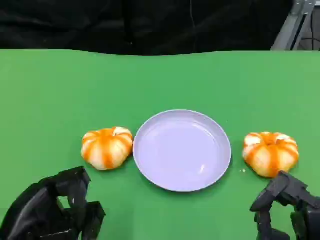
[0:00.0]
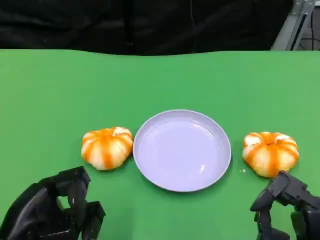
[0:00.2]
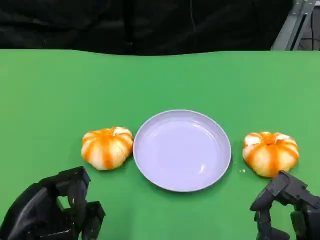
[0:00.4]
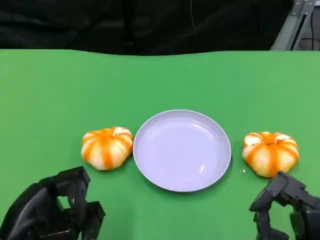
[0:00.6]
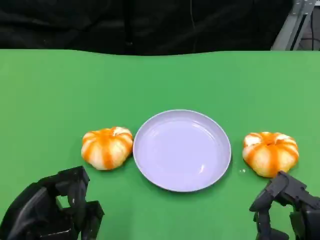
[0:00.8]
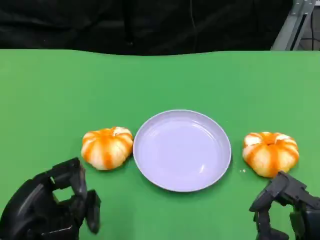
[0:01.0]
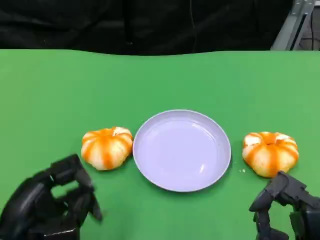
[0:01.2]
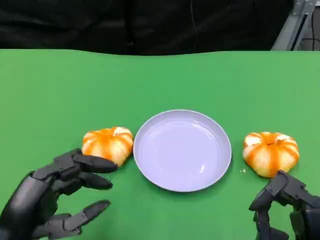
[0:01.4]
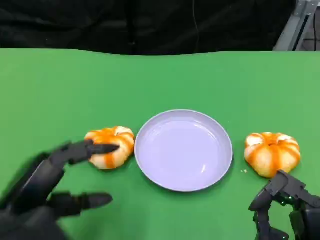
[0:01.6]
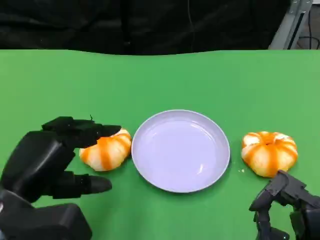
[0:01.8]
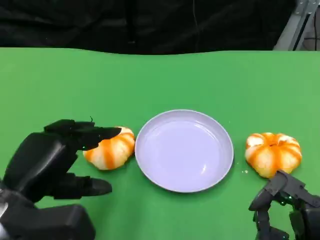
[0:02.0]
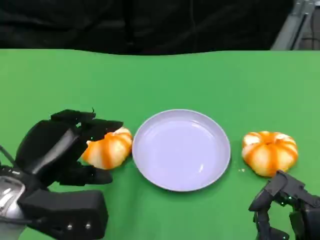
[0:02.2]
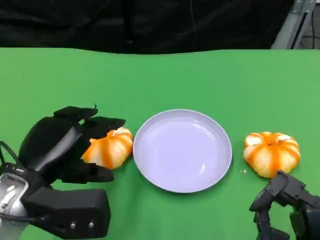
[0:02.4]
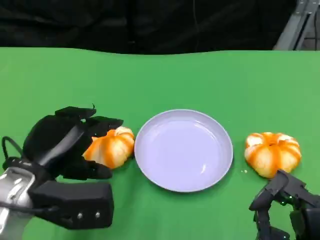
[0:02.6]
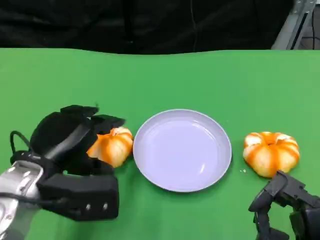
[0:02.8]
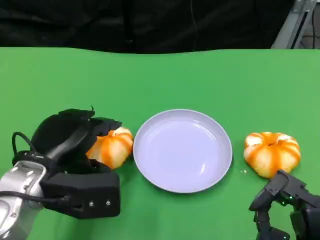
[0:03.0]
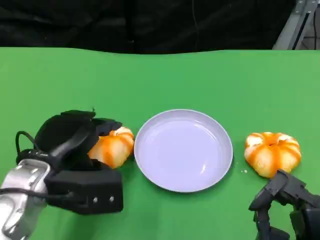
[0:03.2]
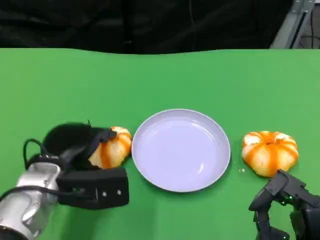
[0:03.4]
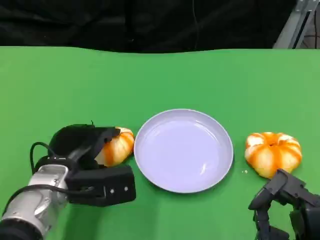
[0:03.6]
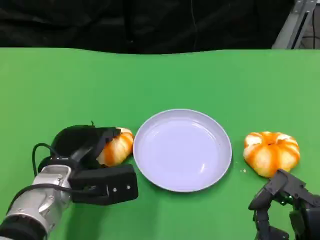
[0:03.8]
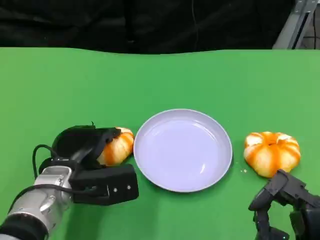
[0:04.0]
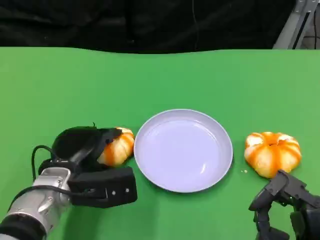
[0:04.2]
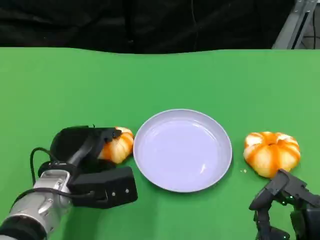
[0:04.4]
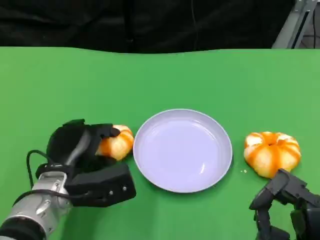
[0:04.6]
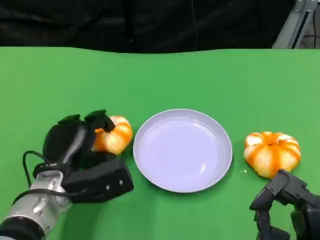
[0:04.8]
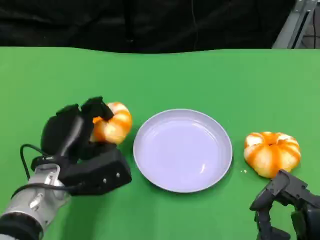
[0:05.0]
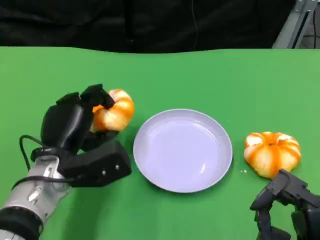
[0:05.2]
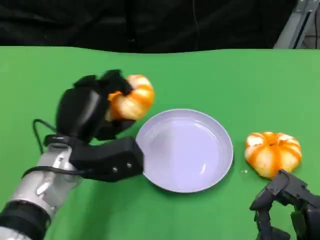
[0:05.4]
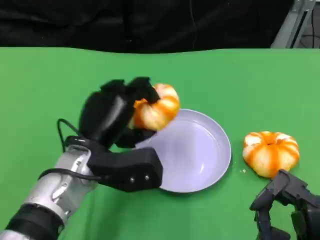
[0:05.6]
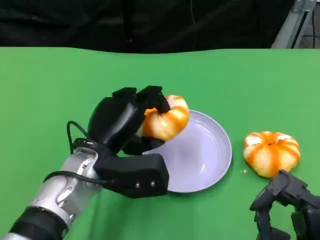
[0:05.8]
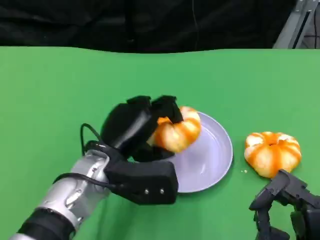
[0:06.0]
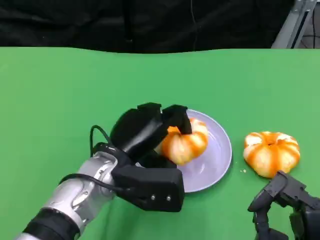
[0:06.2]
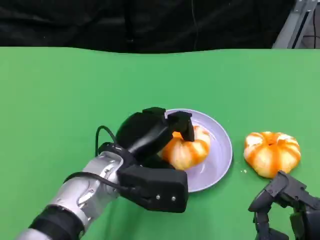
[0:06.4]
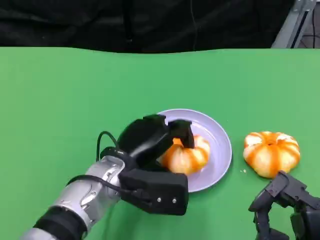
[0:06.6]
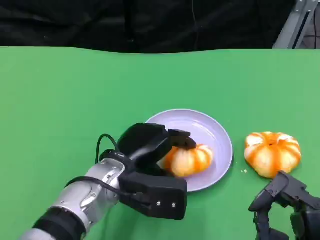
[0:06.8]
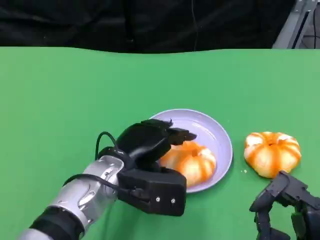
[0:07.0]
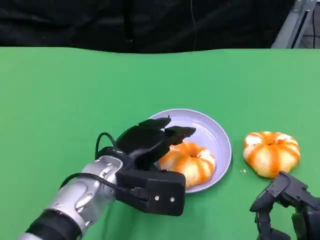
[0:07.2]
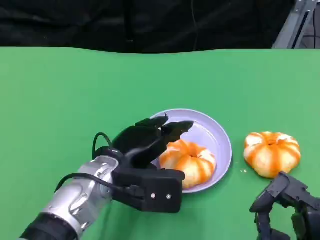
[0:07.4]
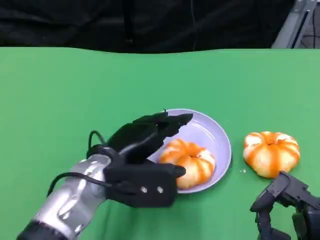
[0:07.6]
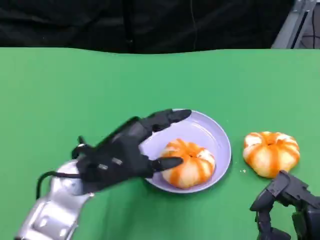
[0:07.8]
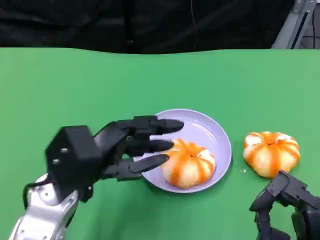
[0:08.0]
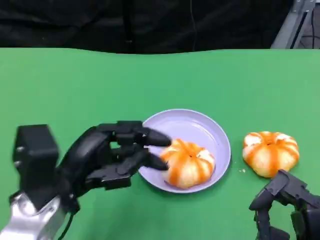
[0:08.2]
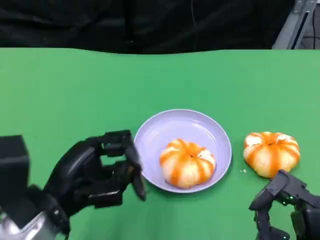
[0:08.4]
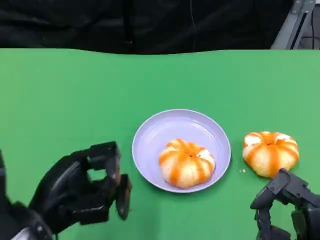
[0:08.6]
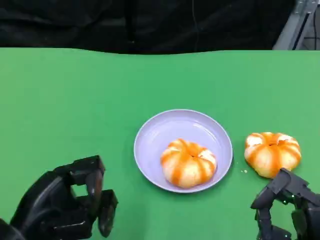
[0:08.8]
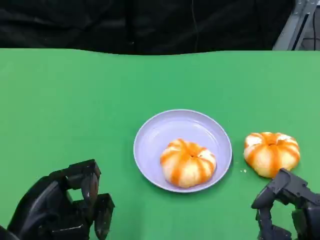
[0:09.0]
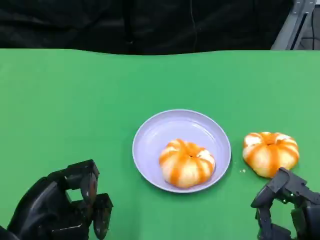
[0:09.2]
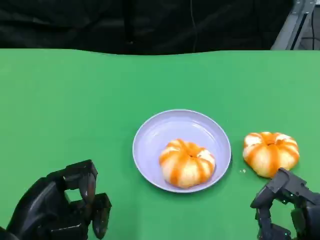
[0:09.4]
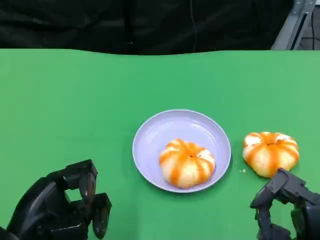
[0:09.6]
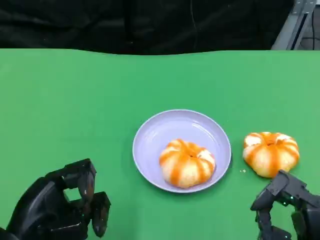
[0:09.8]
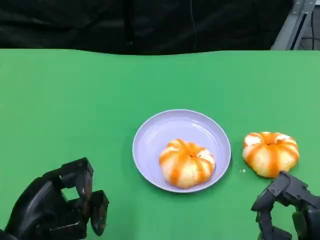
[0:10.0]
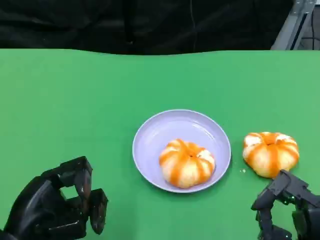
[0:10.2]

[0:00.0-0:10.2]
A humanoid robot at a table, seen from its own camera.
Task of the whole recording: Grasp the bread from the table and place it into the plate.
0:01.4 to 0:03.0: The left hand is displaced forward by roughly 10 cm.
0:03.0 to 0:04.4: The left hand heads downward, covering about 5 cm.
0:04.4 to 0:05.8: The left hand is displaced upward and to the right by about 5 cm.
0:07.2 to 0:08.8: The left hand is displaced to the left and backward by approximately 15 cm.
0:08.8 to 0:10.2: The hands move only a little.
